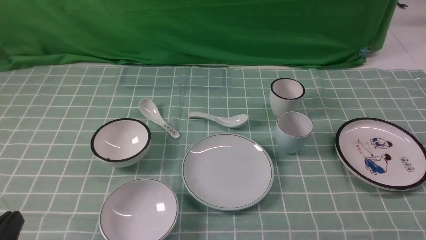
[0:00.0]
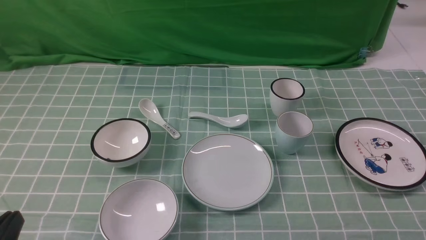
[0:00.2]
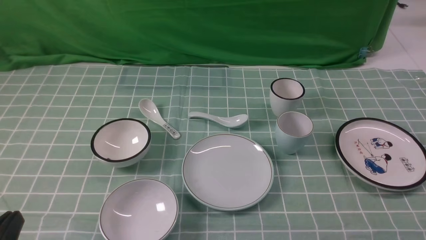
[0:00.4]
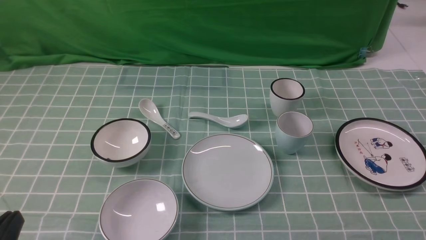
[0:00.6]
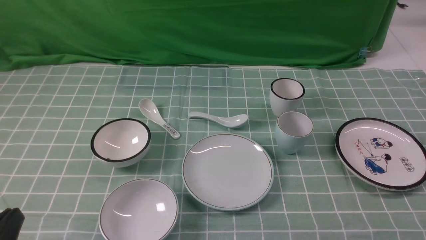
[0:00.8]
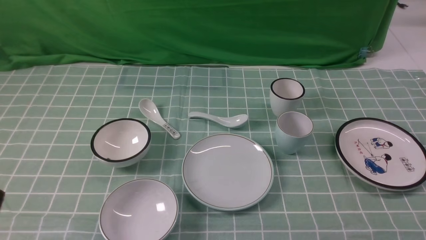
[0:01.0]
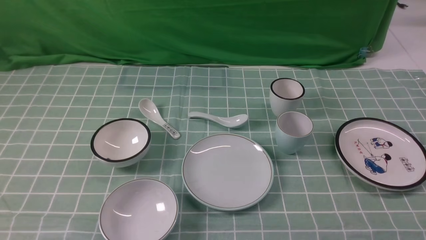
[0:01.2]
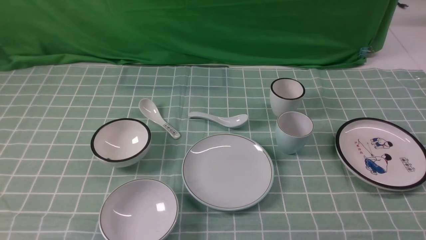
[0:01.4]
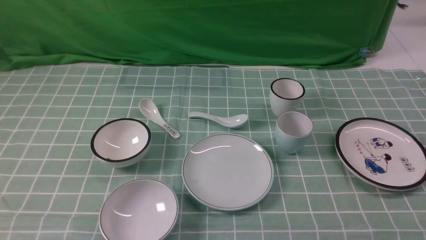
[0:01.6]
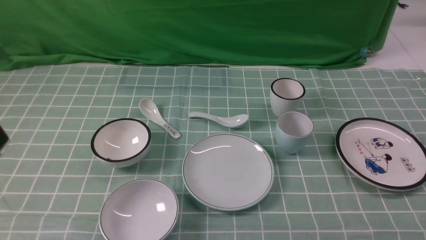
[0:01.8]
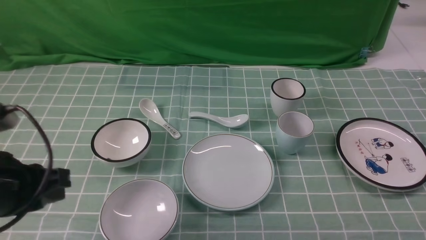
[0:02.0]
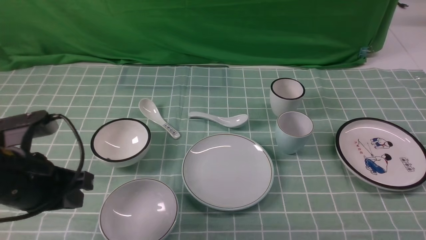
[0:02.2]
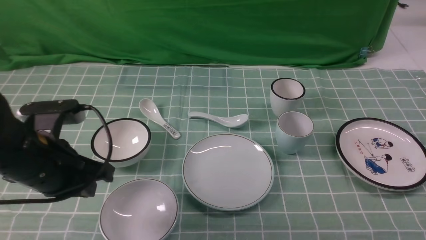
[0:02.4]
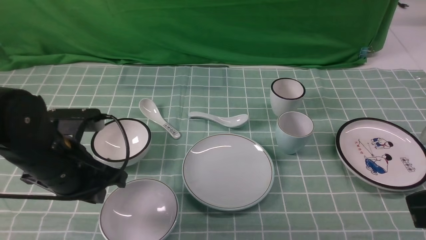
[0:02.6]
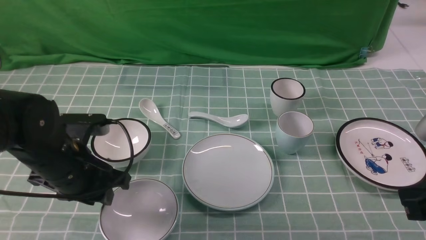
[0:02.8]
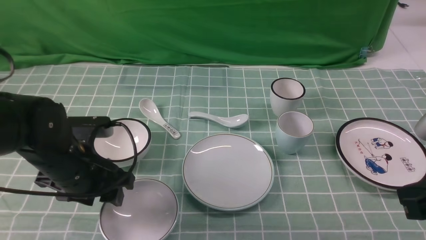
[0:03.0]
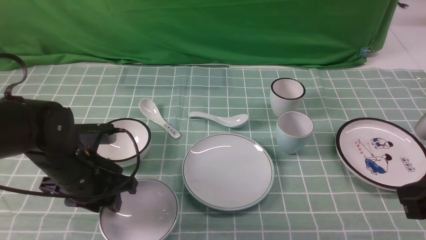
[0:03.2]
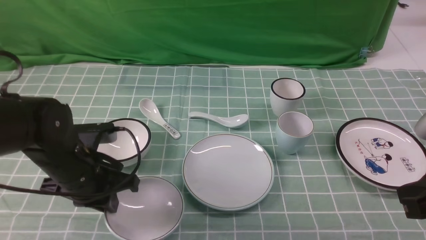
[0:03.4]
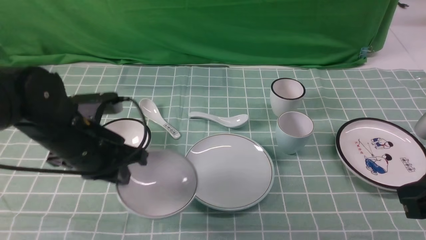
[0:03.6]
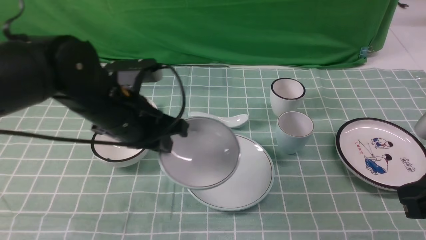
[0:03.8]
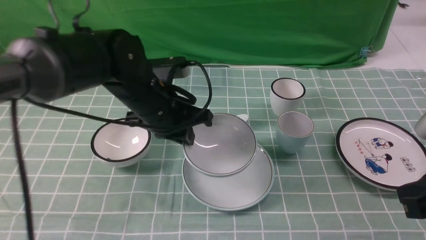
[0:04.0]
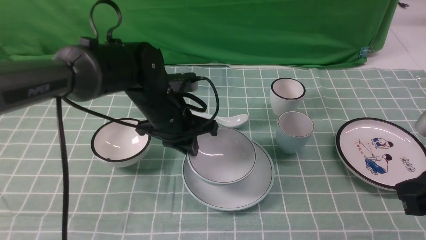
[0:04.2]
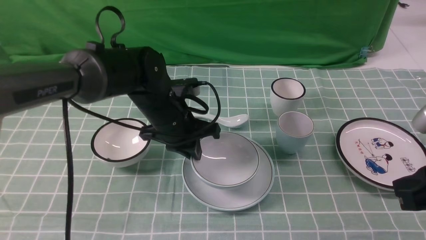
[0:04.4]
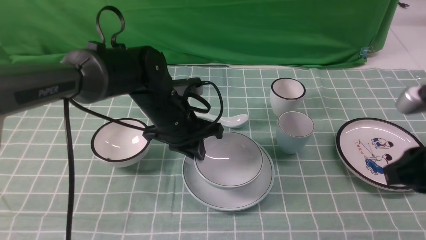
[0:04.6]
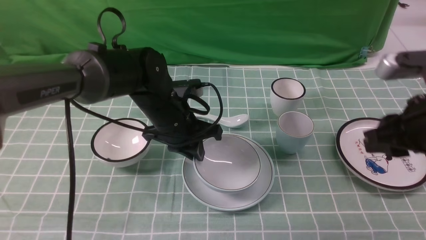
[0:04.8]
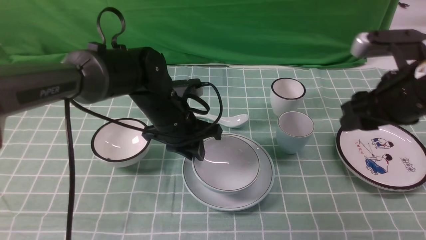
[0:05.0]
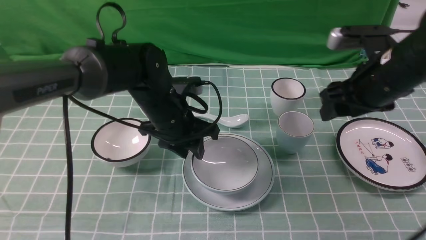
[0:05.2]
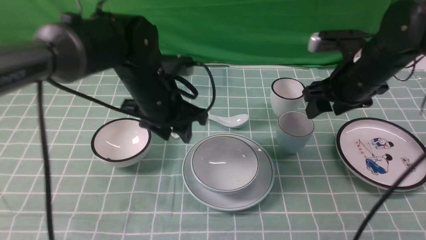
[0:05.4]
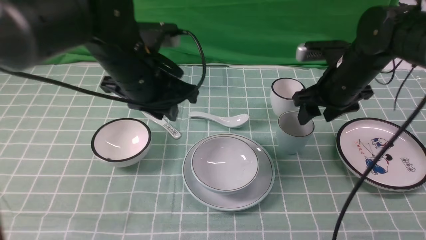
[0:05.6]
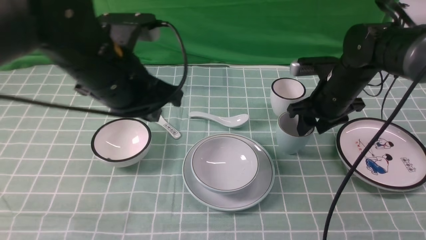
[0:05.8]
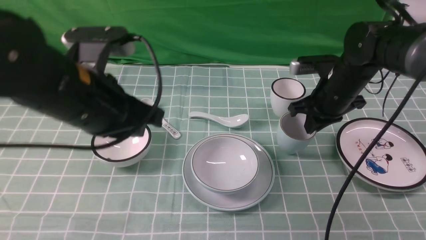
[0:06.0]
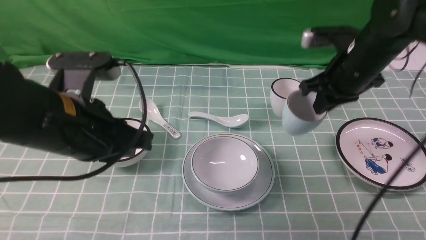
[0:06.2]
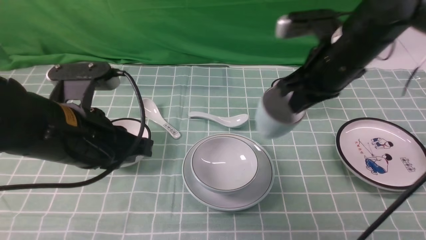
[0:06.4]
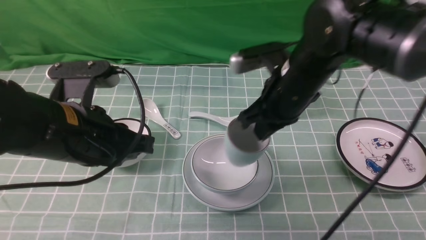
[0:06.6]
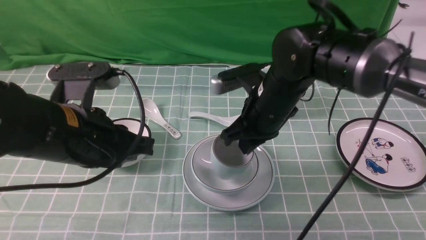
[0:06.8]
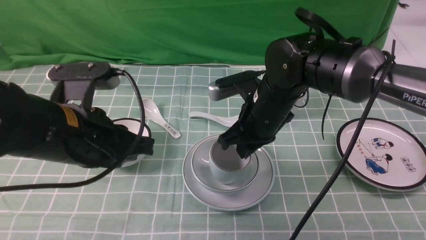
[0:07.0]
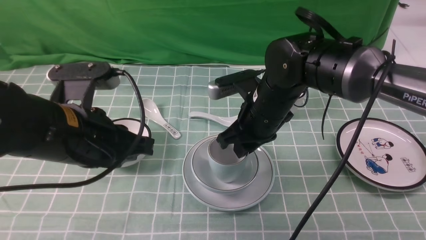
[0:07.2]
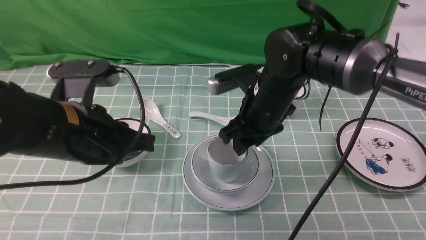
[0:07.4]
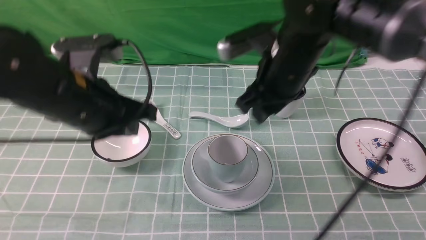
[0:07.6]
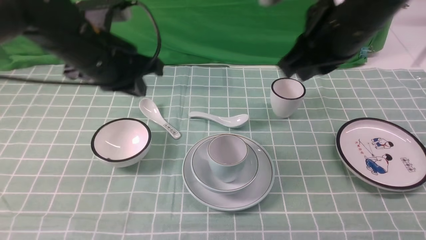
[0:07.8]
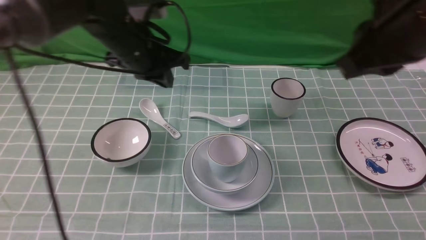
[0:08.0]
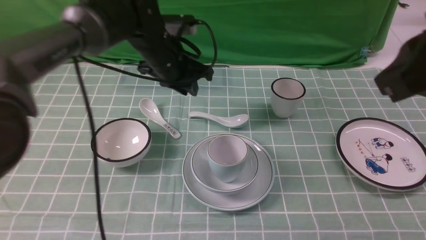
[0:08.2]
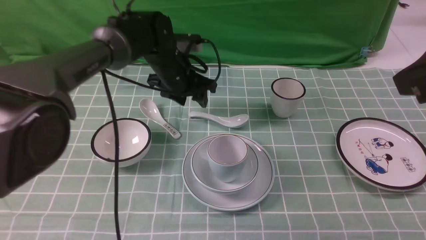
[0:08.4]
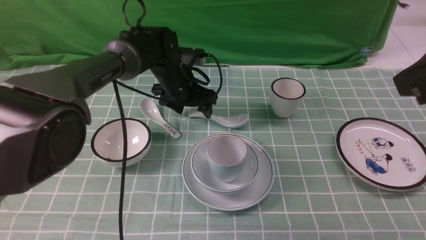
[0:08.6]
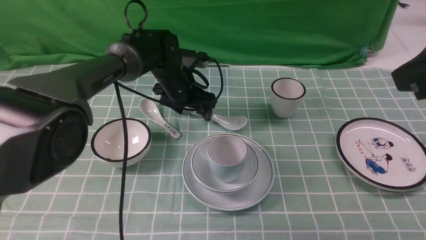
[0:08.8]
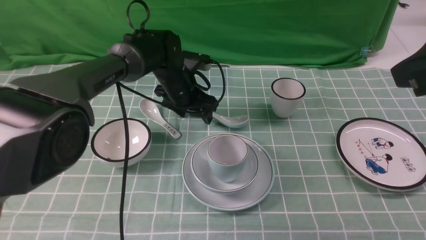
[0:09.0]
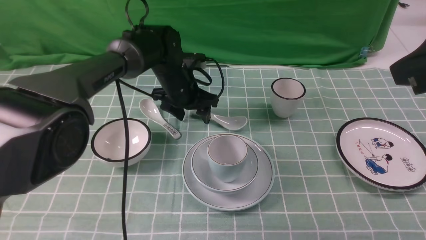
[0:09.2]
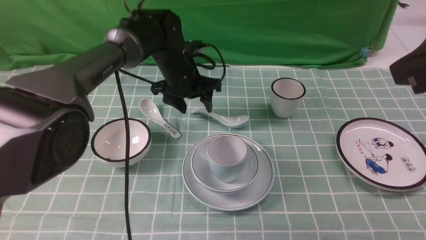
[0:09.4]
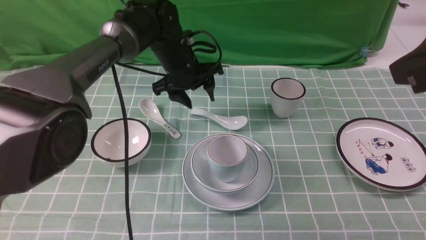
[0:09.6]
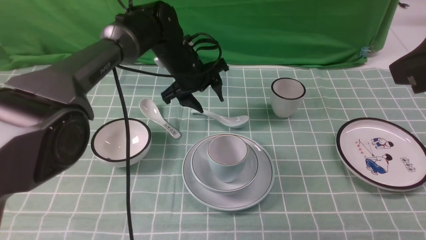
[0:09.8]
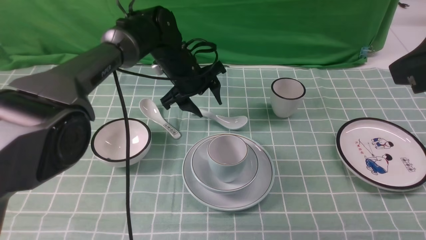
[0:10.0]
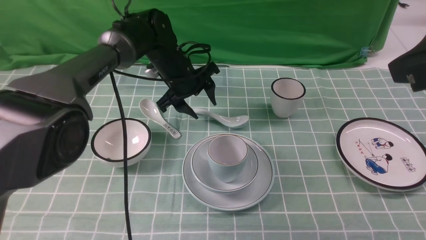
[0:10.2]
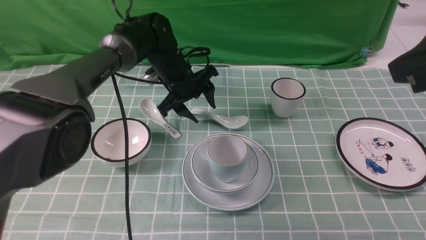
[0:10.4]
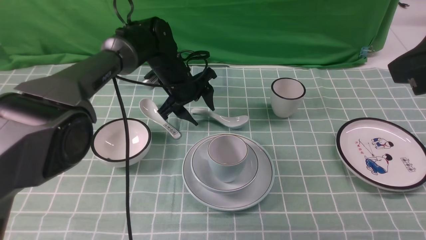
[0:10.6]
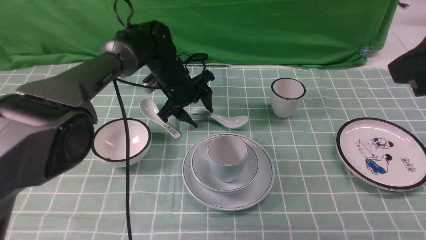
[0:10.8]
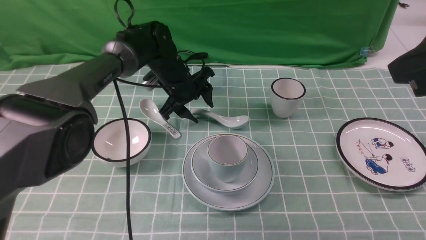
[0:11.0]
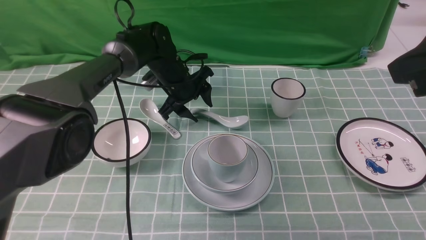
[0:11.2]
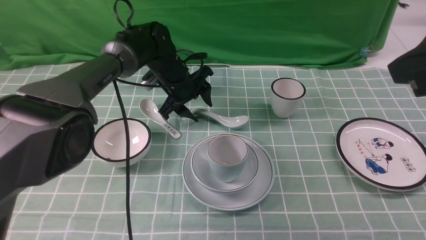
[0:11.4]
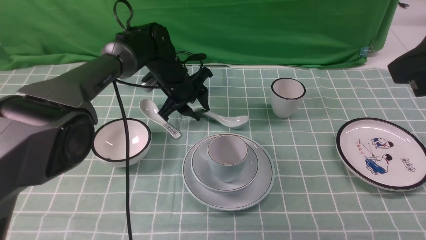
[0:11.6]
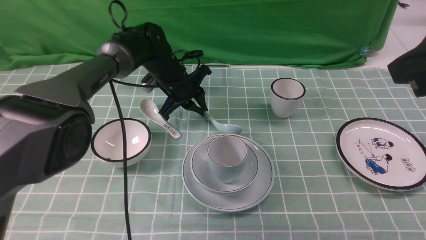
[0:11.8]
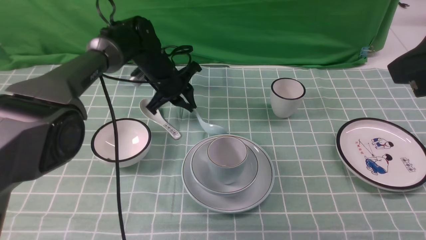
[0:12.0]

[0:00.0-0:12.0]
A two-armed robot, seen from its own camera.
Task of the whole recording: place the bowls on the plates on the blue tablecloth, put the cups on the bowls, and place the spoons in the cups.
Step, 0:00.0 to 0:03.2: Grasp the bowl with the left gripper.
Step, 0:03.4 to 0:05.2: Place the bowl on the plate with the left gripper.
Step, 0:05.4 to 0:05.8: Grasp the cup with the right gripper.
Step, 0:06.0 to 0:07.2: Place the cup on the bowl with the right gripper.
Step, 0:07.4 to 0:11.6: Grasp the spoon with the left gripper.
0:01.6 to 0:03.0: The right gripper travels forward, upward and to the left by approximately 15 cm, and closes. Meanwhile the left gripper moves forward and downward, about 25 cm, and opens up.
0:03.0 to 0:04.4: The left gripper heads to the right and forward, covering about 15 cm, and closes its fingers.
0:04.4 to 0:06.0: The left gripper travels upward, backward and to the left by roughly 20 cm, and opens and closes again; the right gripper shifts roughly 25 cm forward, and opens, then closes again.
0:06.0 to 0:07.6: The right gripper moves to the left, upward and backward, about 15 cm.
0:07.6 to 0:09.0: The right gripper heads backward, to the right and upward, covering about 20 cm, and closes its fingers. The left gripper heads forward and downward, covering approximately 25 cm, and opens its fingers.
0:10.4 to 0:12.0: The left gripper closes.

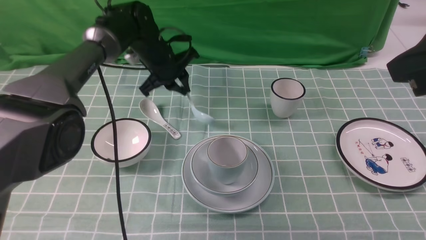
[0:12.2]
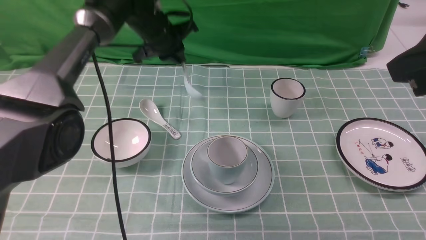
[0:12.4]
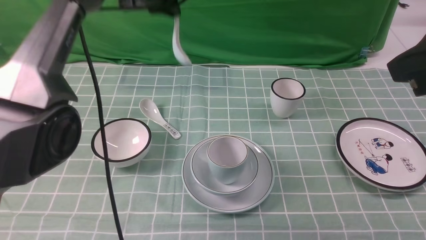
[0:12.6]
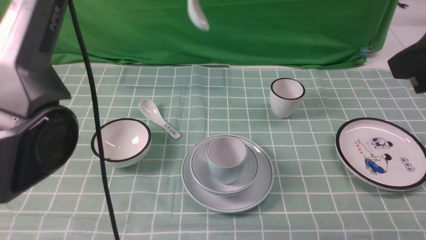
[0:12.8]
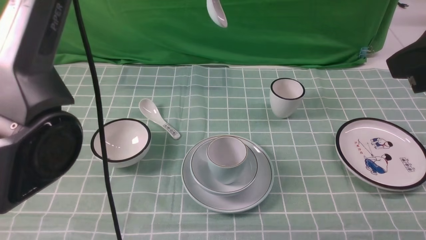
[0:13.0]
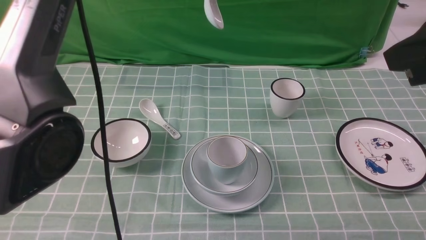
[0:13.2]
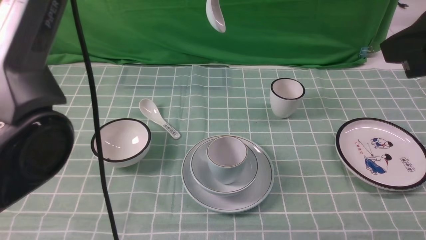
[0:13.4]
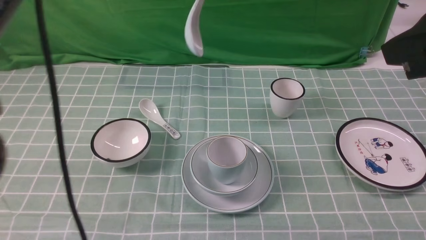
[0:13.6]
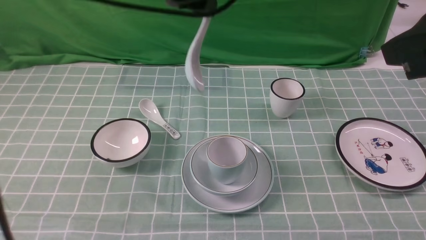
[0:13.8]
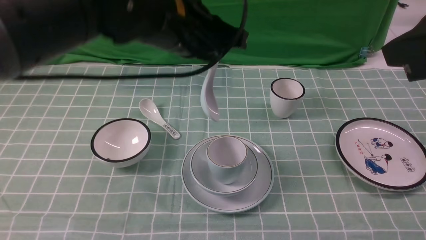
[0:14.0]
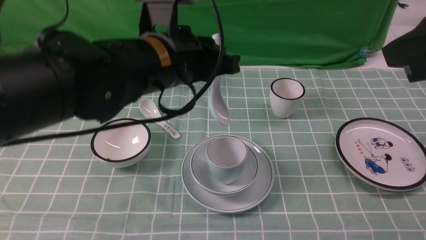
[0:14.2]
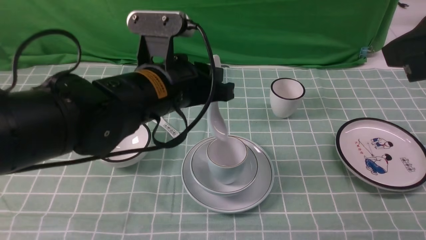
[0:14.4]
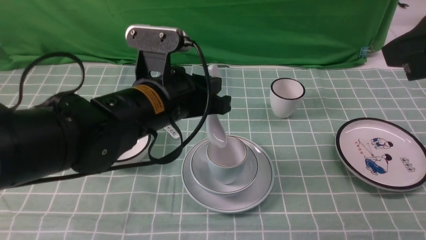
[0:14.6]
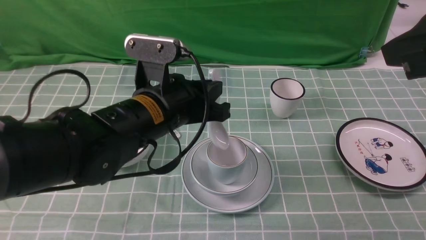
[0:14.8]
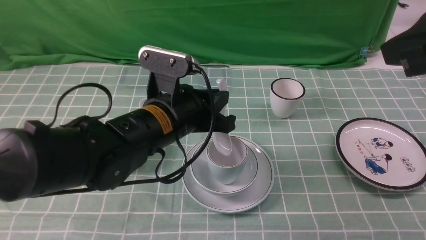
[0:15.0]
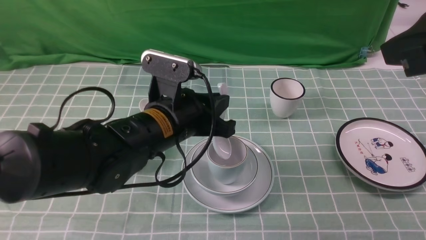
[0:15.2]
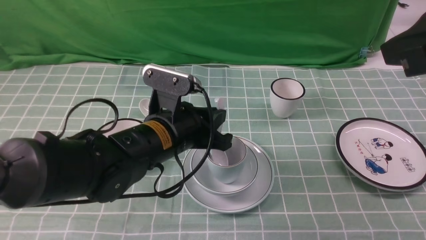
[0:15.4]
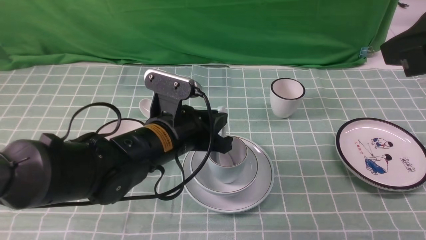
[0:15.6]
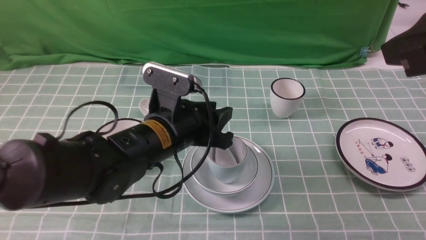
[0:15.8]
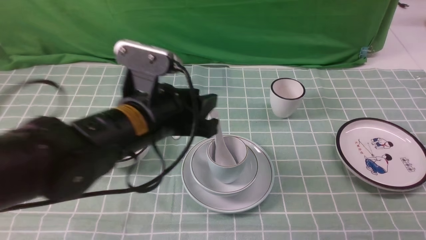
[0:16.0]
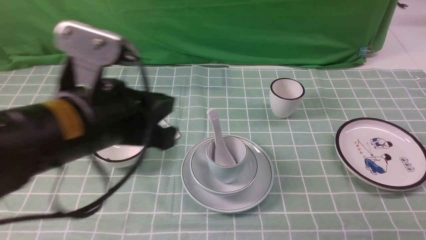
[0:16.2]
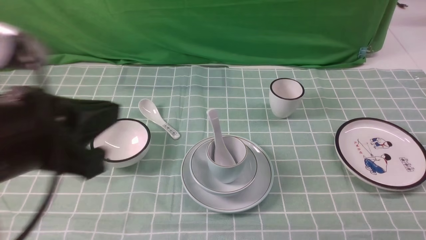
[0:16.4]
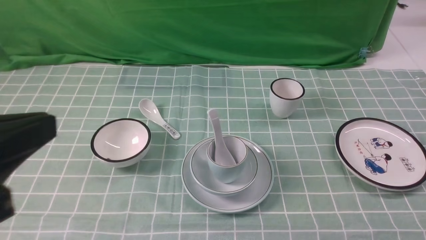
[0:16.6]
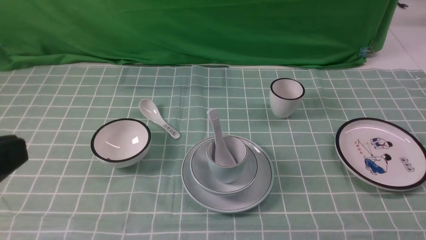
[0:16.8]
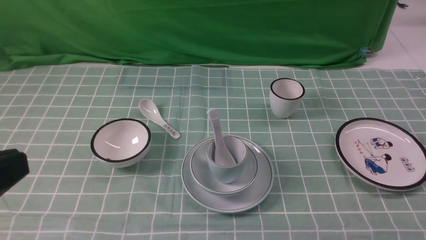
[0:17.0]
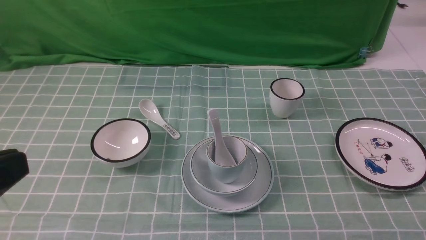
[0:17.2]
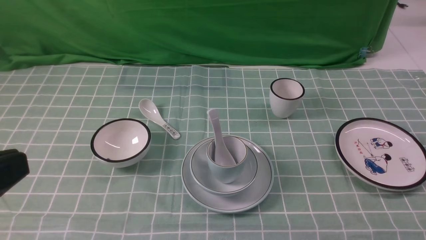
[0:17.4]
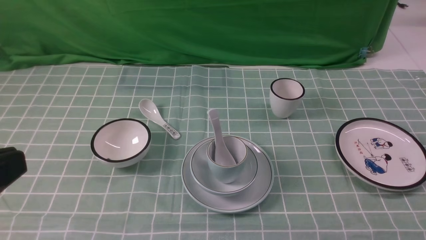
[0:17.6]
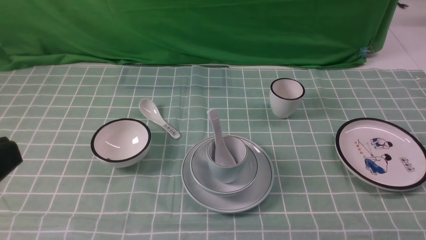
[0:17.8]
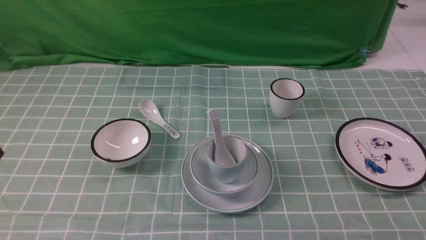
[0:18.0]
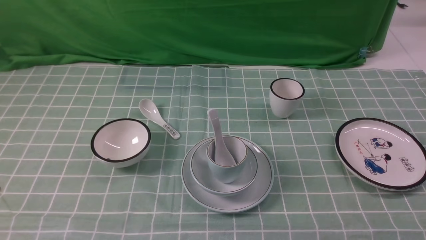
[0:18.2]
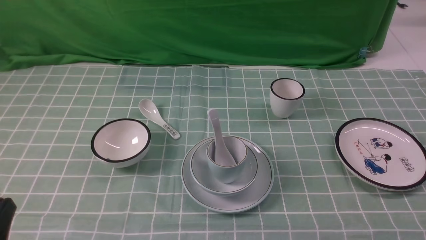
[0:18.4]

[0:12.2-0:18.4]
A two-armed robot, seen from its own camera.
Task of the whole recording: place the bowls on the plates on the blue tablecloth, put the cups on the bowls, and place the spoons in the cups.
Step, 0:12.2 to 0:15.6: Place the spoon on the cup with the left gripper.
0:12.2 to 0:13.8: The left gripper goes about 25 cm upward and backward.
0:13.8 to 0:15.4: The left gripper travels downward by some 20 cm.
0:15.4 to 0:16.8: The left gripper heads backward, to the left and upward, covering roughly 30 cm. The right gripper shifts about 20 cm backward, to the right and downward.
0:16.8 to 0:18.4: The left gripper travels downward by about 15 cm.
